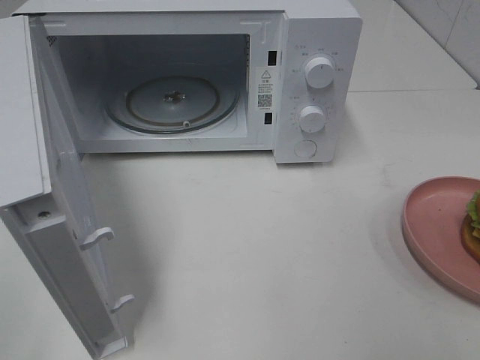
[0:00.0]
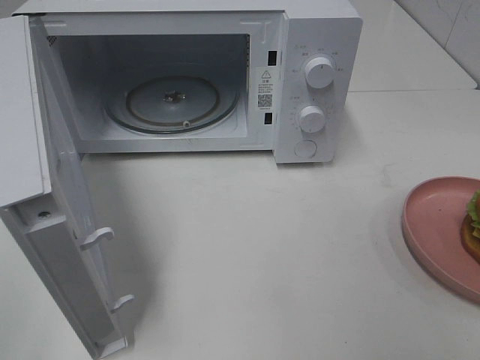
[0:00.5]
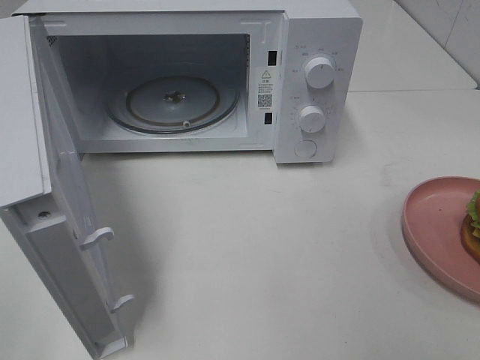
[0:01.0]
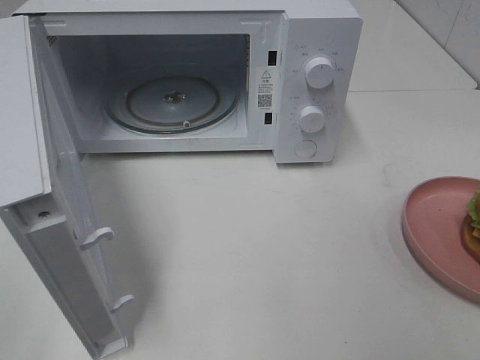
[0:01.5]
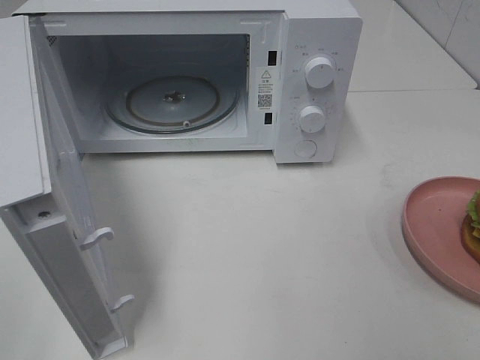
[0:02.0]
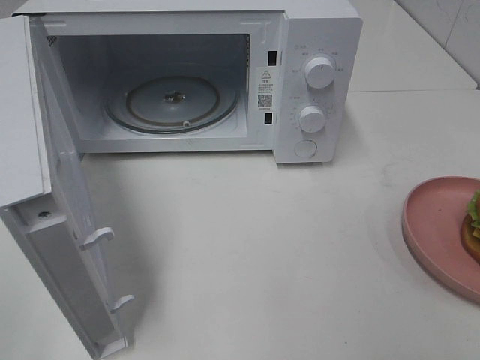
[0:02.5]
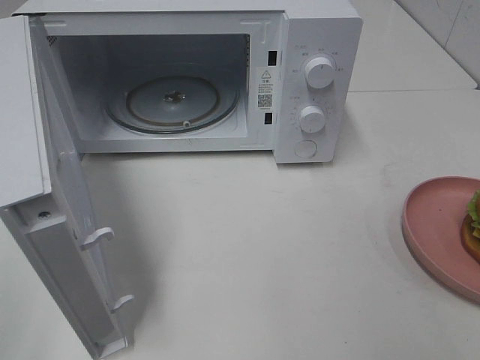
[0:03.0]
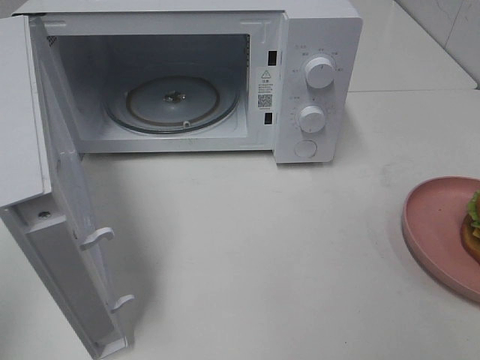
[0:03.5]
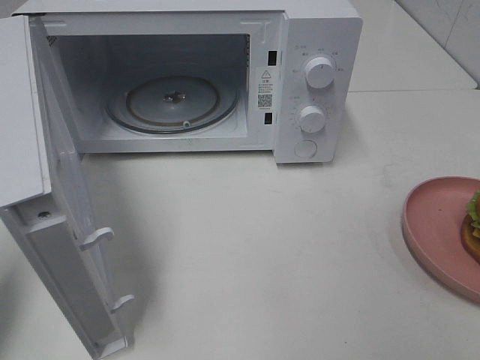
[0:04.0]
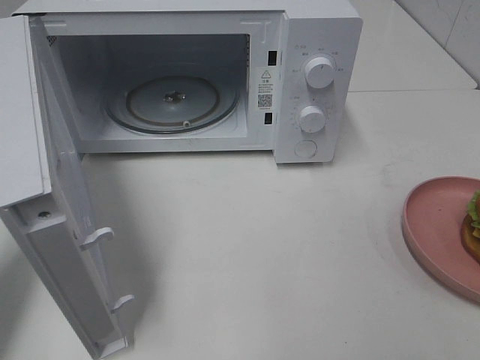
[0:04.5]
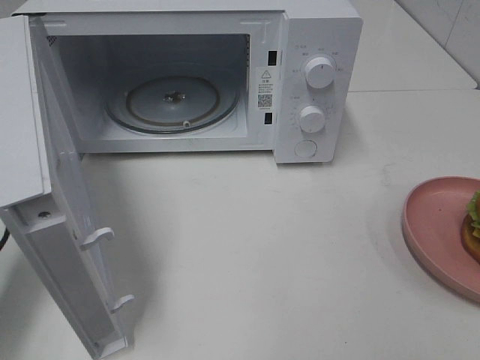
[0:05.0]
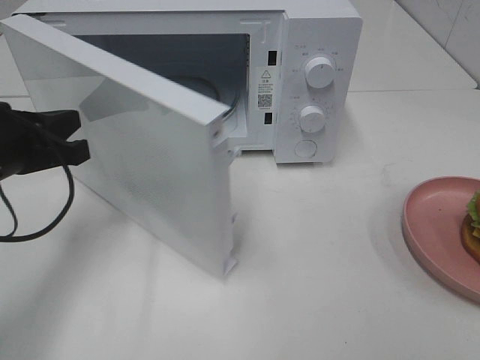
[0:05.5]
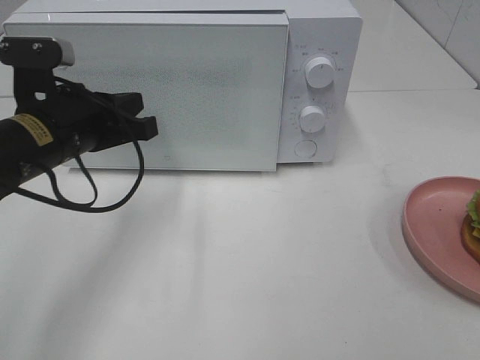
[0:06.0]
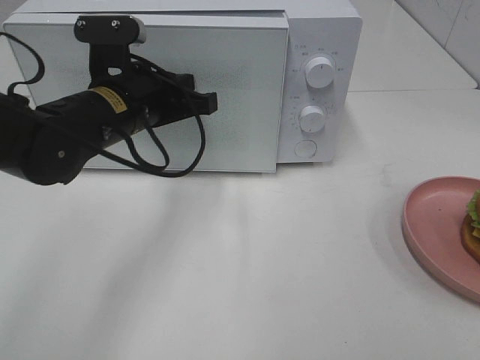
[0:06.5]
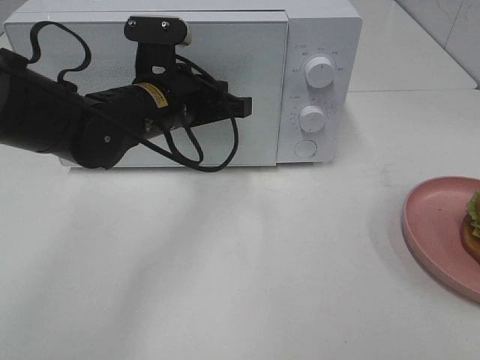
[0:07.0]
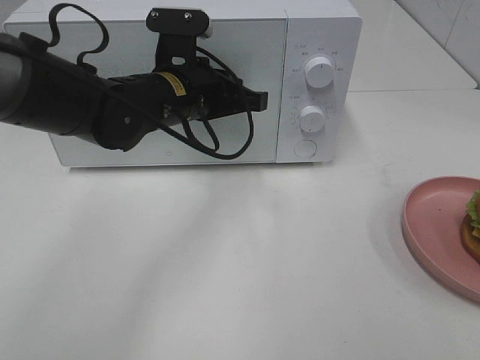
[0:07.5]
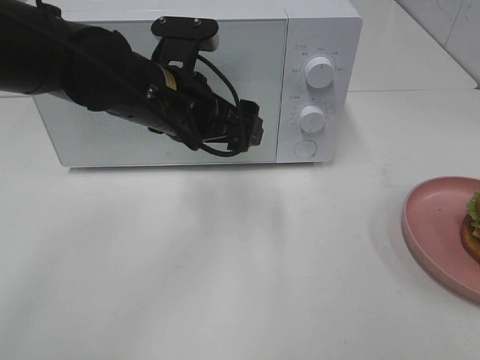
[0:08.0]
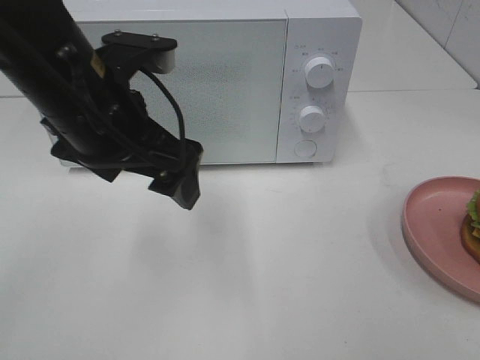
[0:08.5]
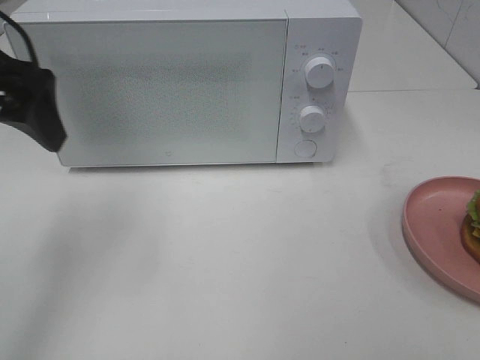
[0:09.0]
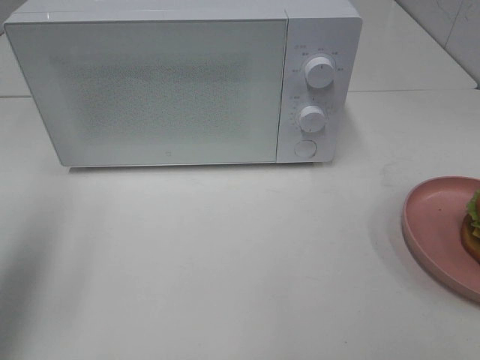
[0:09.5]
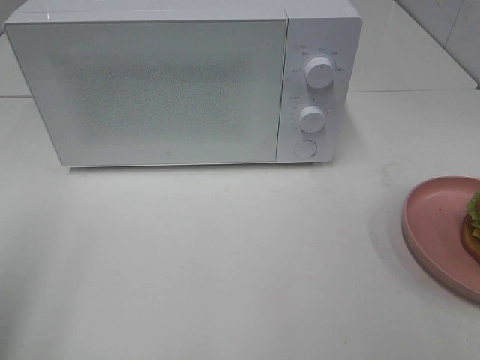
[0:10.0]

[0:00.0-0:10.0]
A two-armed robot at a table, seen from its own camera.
Task of the whole recording: Heat the burger.
Step, 0.0 to 7.5 s: Left hand: close the microwave door.
0.0 to 2.0 s: Both grippers stay put.
2.0 to 4.0 s: The left gripper shifts approximately 15 cm forward, and closes up.
4.0 to 6.0 s: The left gripper goes roughly 20 cm to the right, forward and downward.
6.0 to 8.0 s: The left gripper moves to the right, approximately 10 cm, and opens up.
8.0 to 10.0 s: The left gripper is displaced to the left and backward by roughly 35 cm.

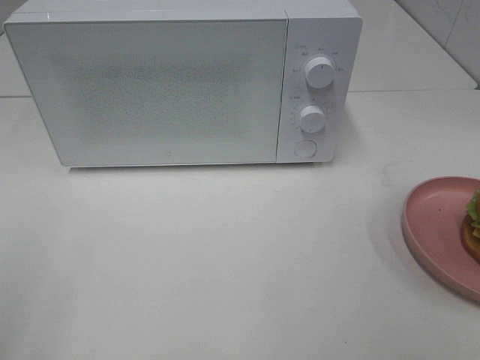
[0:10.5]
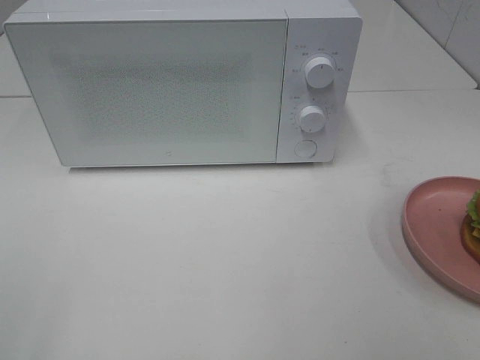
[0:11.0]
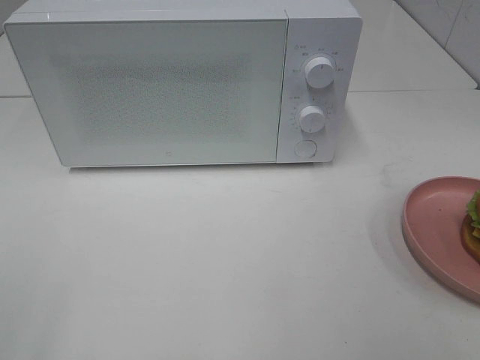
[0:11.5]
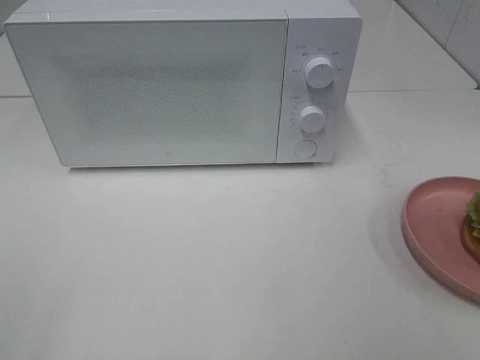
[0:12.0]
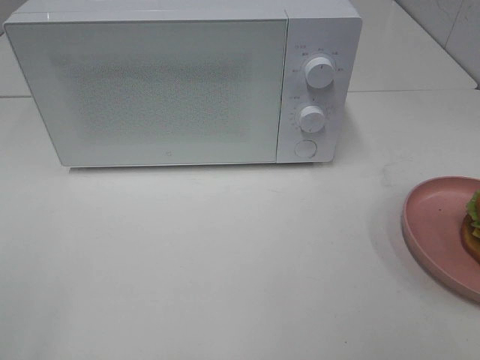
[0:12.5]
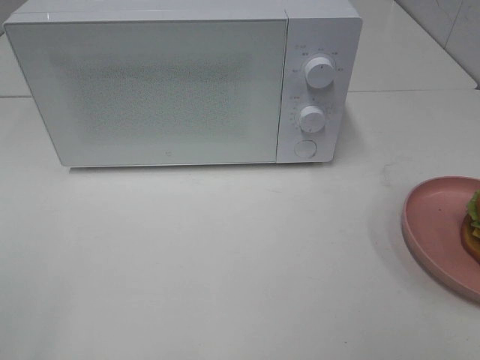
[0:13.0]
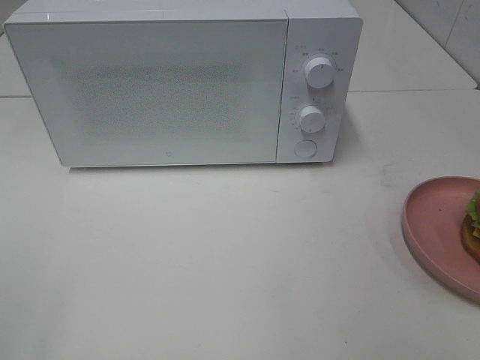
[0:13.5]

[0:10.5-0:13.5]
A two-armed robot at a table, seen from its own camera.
Task of the whole recording: Heat the burger.
12.0 to 13.5 s: The two grippers keep their place.

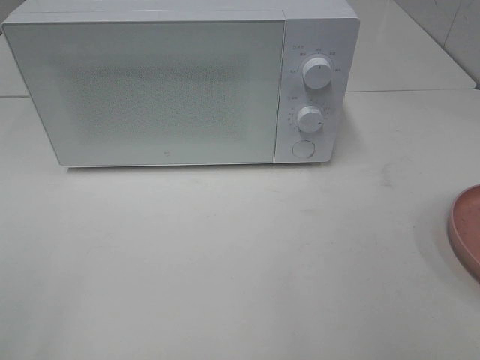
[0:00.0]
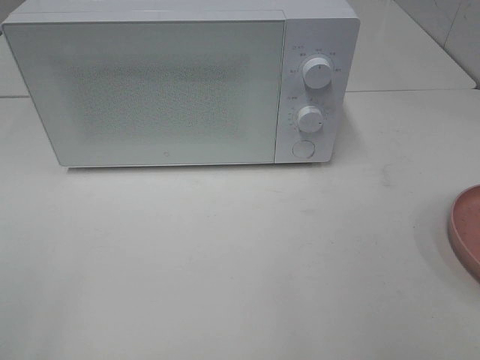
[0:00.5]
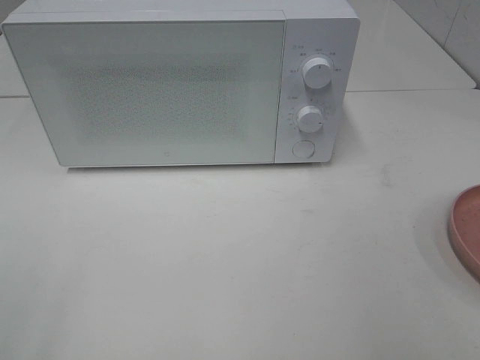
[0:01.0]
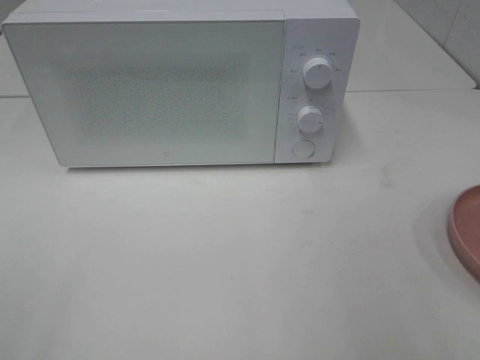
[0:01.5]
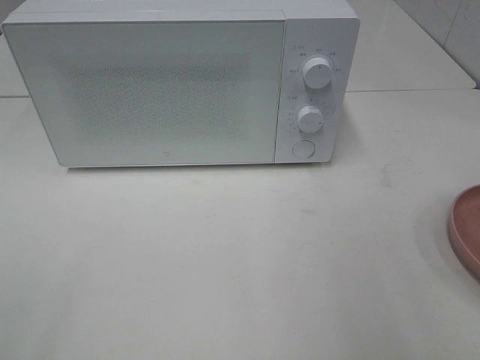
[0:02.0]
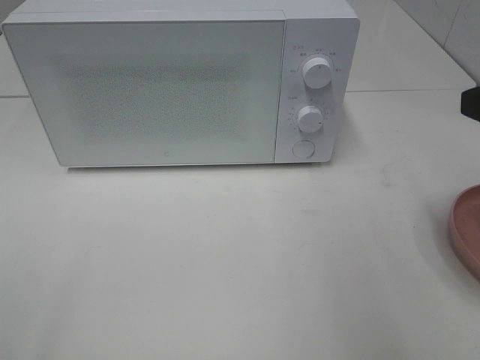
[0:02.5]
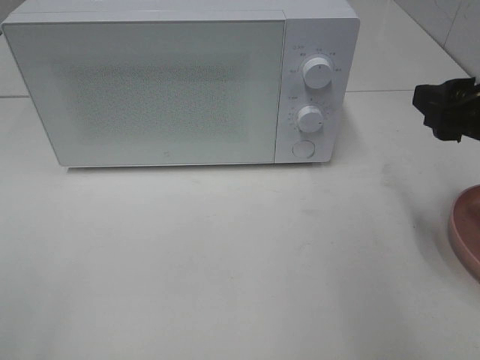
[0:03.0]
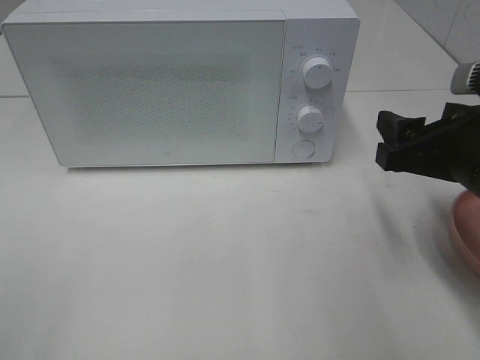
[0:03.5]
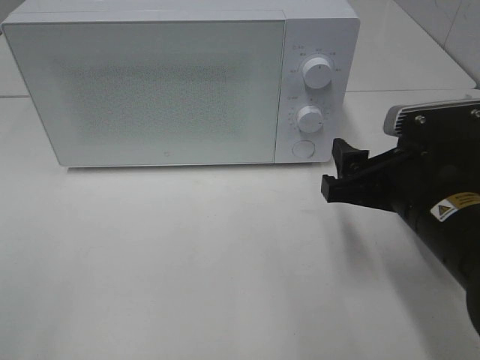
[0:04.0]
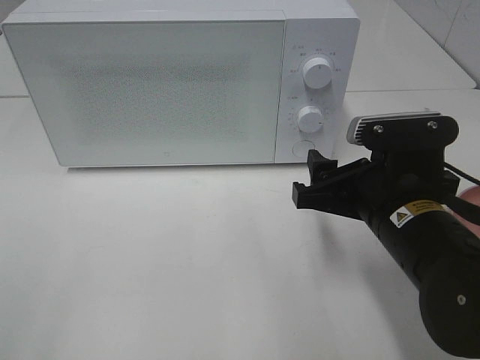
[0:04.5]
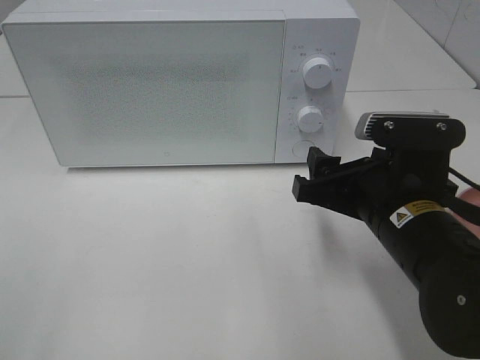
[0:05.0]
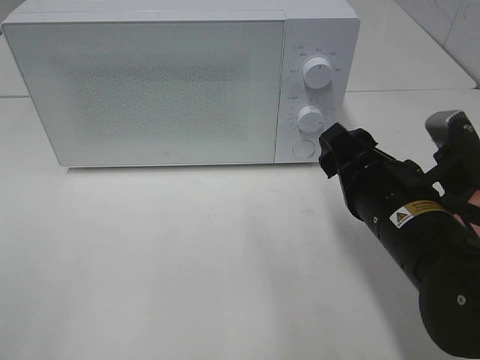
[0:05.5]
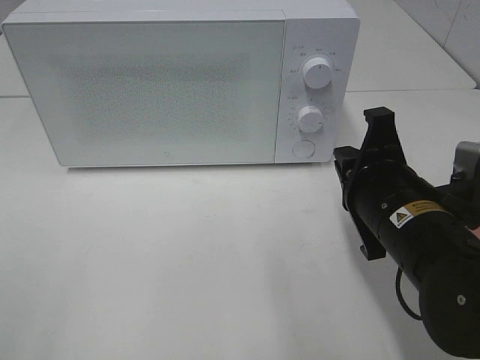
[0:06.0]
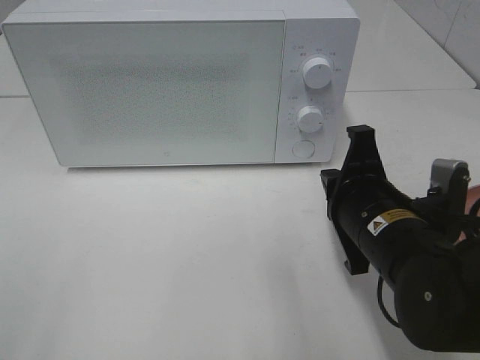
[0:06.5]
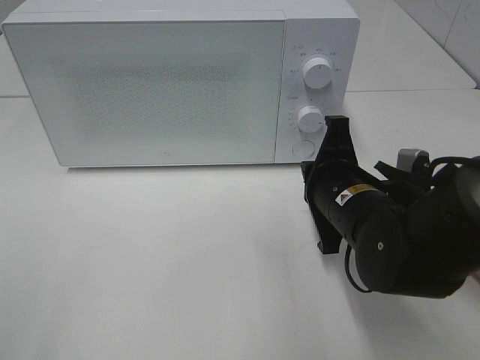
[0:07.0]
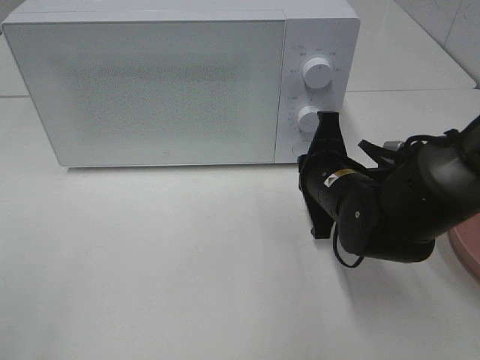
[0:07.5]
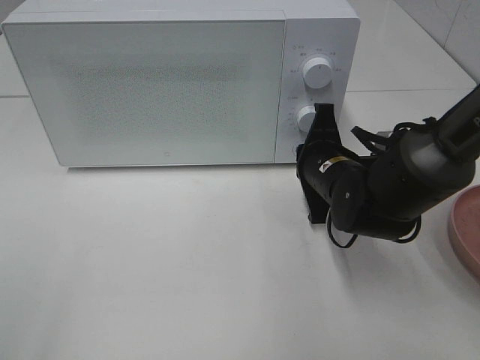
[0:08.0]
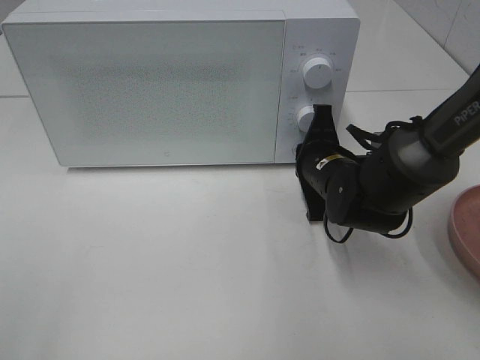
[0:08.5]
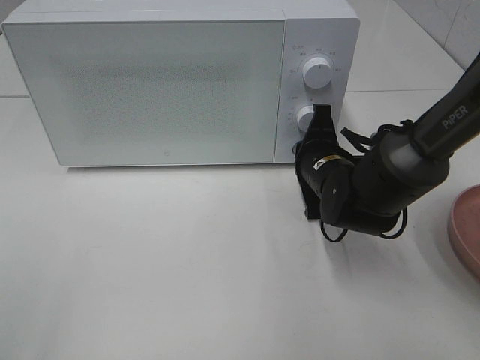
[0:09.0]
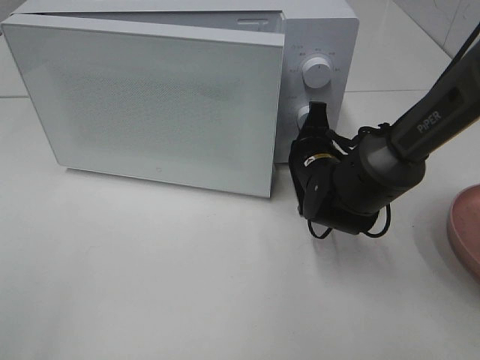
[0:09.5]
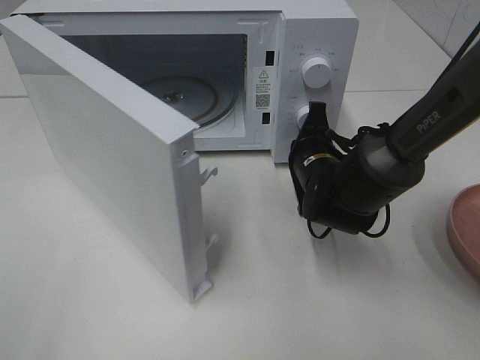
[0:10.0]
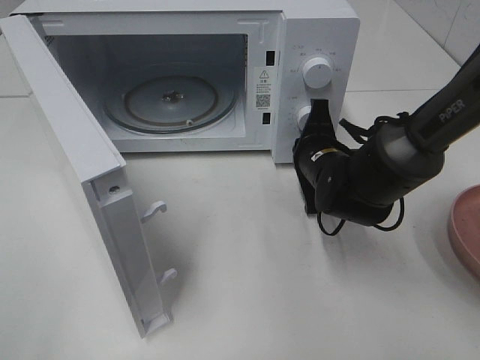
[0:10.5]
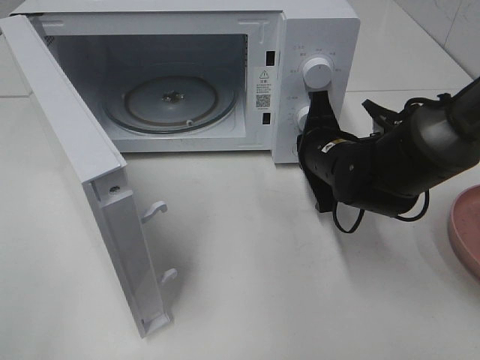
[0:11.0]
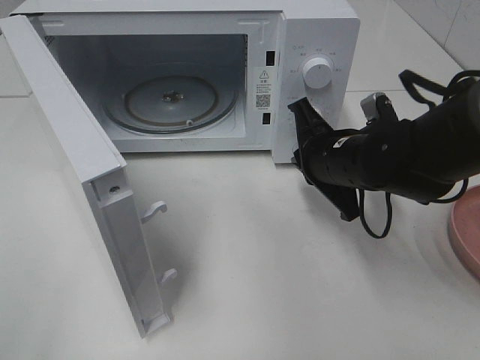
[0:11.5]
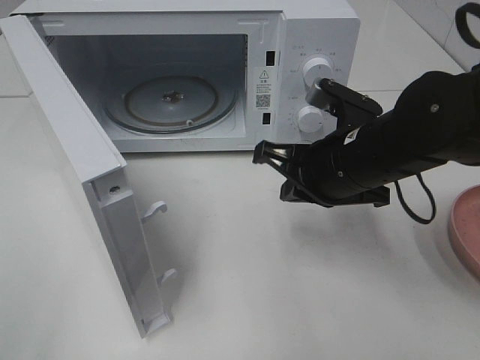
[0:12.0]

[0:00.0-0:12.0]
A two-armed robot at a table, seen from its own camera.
Task of the whole recording: Heat the burger.
Step, 0.0 to 11.0 s: Right hand: press the switch.
2.0 to 4.0 s: The right gripper shifts about 20 cm downward, to the left and forward.
4.0 to 6.0 s: The right gripper closes up.
6.0 to 8.0 s: The right gripper moves forward and downward, approximately 15 cm.
10.0 to 12.0 s: The right gripper goes some 15 cm upward and backward.

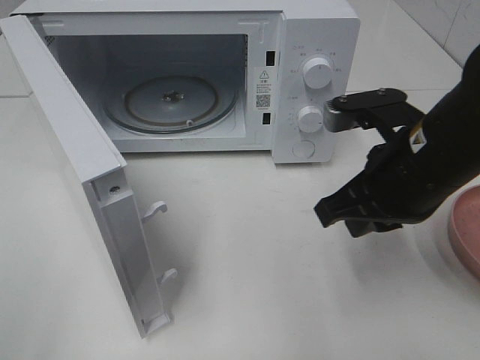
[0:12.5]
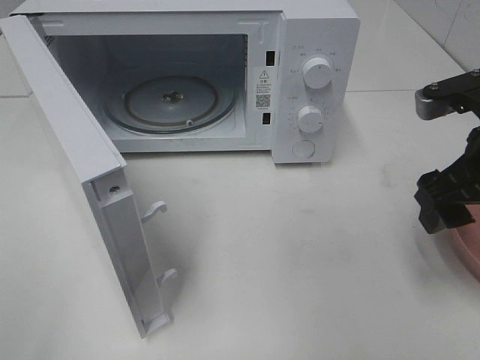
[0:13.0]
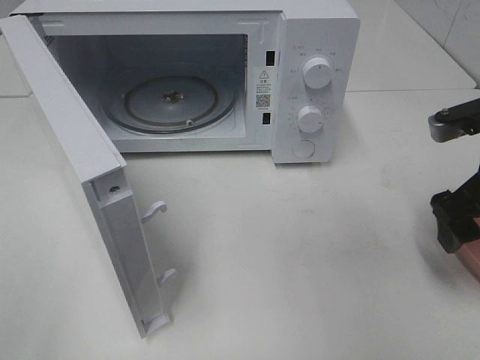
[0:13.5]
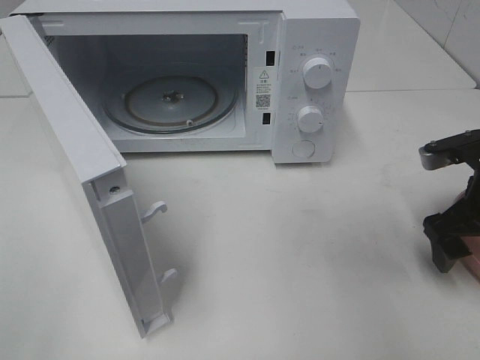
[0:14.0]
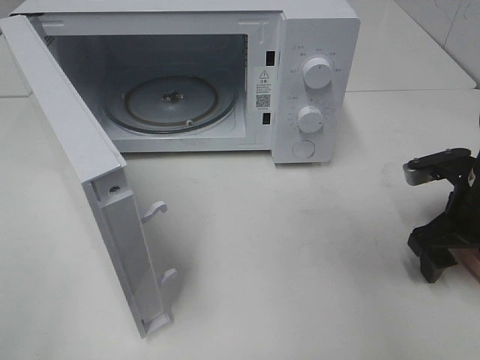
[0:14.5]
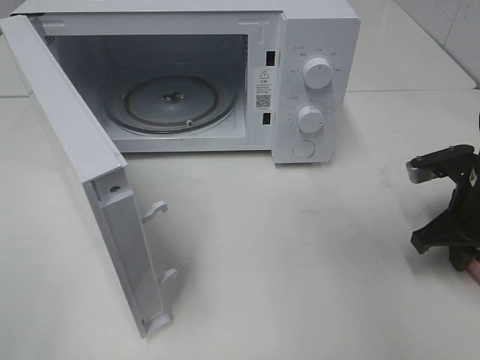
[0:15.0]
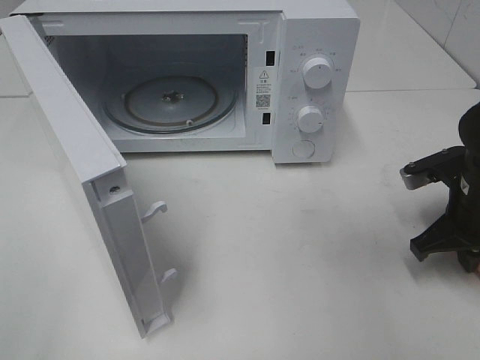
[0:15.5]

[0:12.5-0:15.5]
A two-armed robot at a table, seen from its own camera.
Task of the whole recording: Heat the burger.
12.5 to 14.0 s: The right gripper goes roughly 15 cm to the right and downward, and opens its fingers.
14.0 to 15.5 s: The right gripper closes up.
